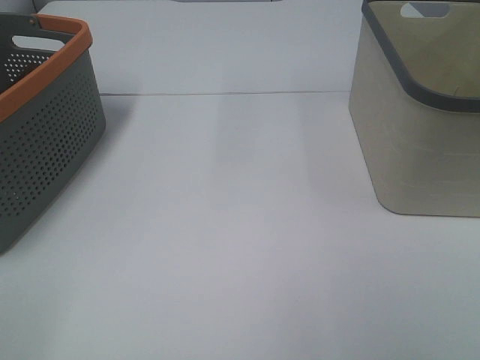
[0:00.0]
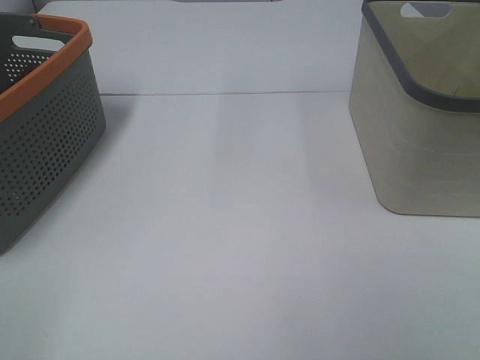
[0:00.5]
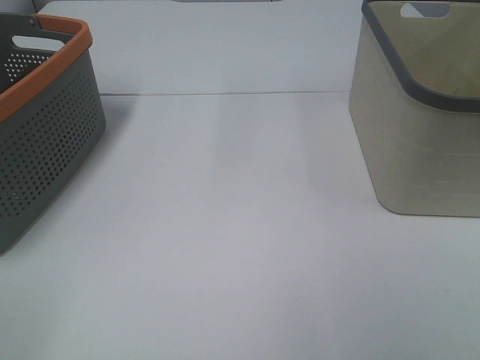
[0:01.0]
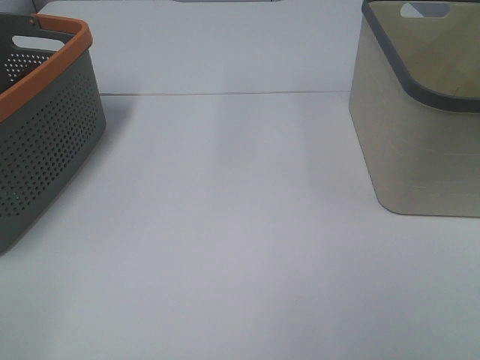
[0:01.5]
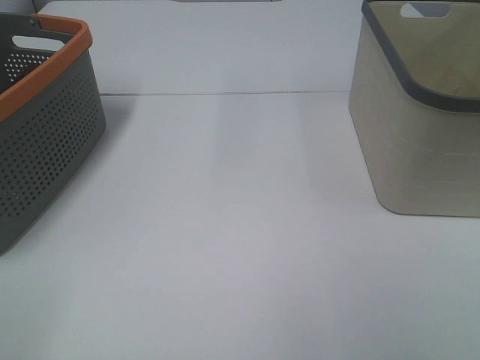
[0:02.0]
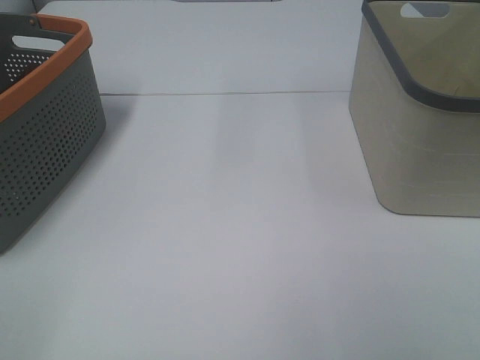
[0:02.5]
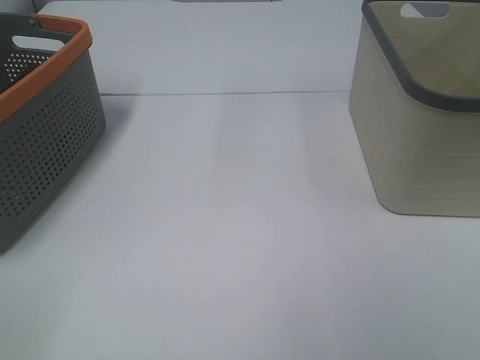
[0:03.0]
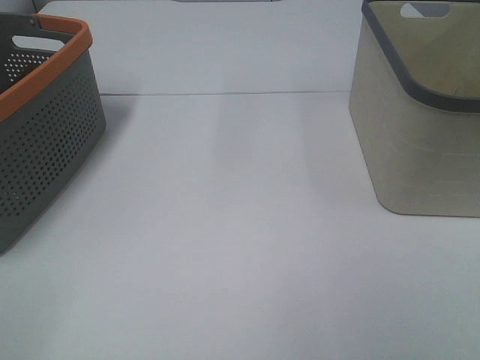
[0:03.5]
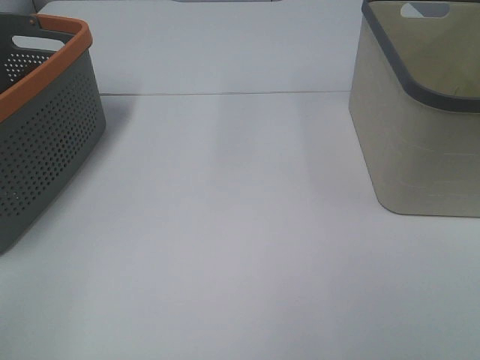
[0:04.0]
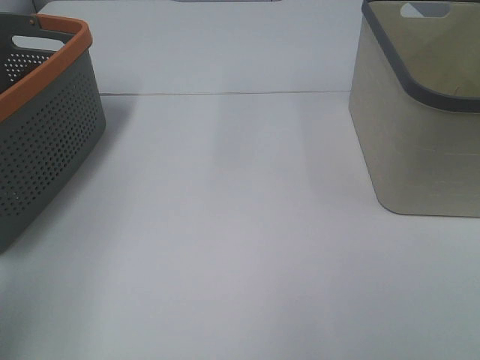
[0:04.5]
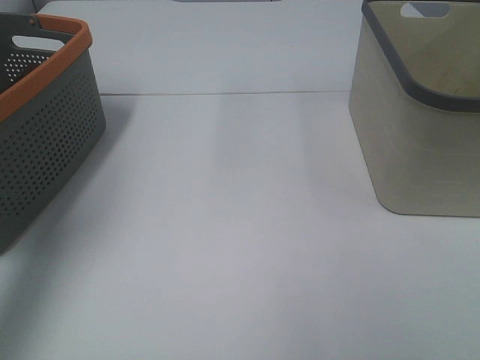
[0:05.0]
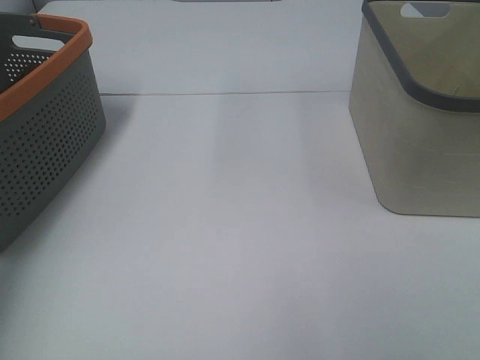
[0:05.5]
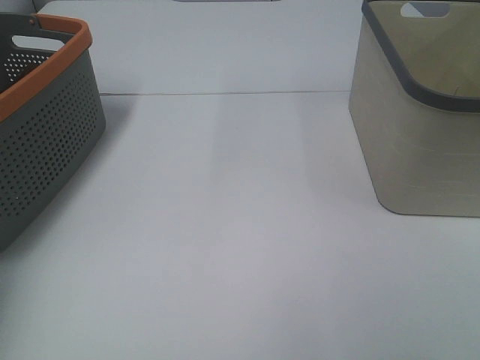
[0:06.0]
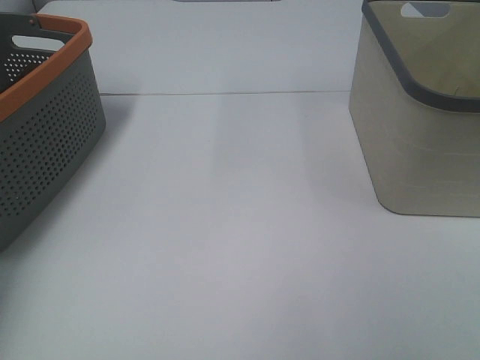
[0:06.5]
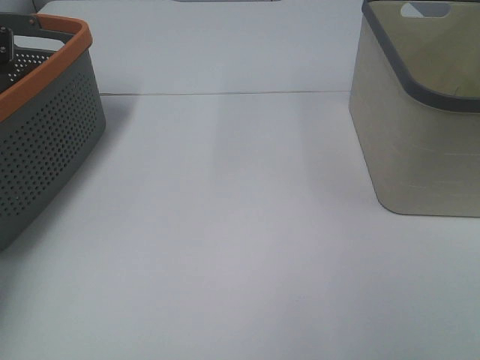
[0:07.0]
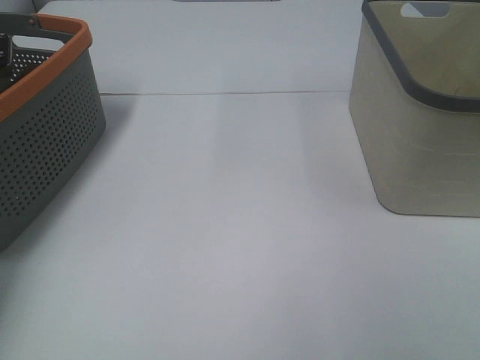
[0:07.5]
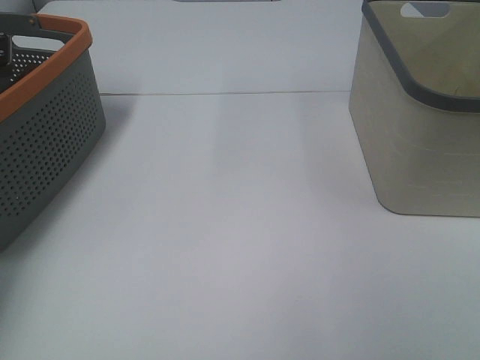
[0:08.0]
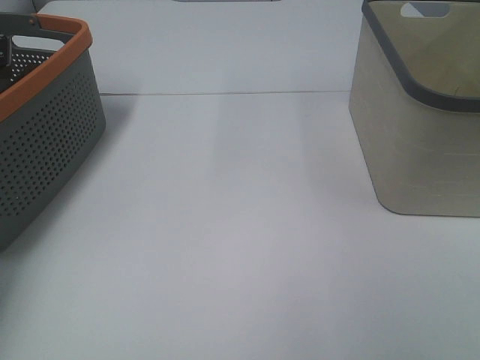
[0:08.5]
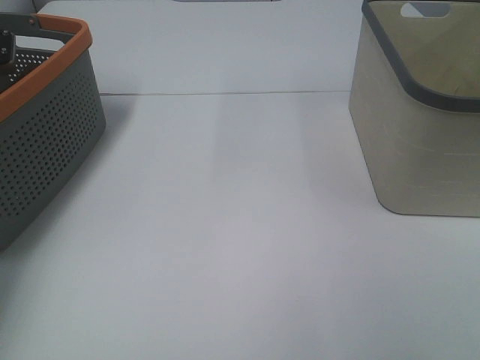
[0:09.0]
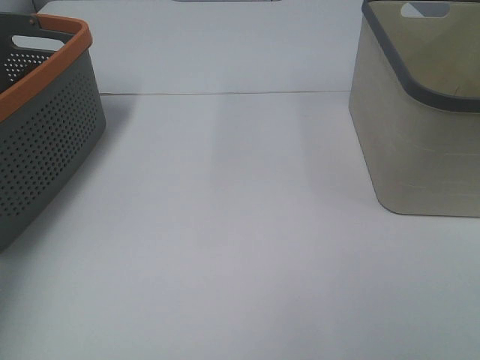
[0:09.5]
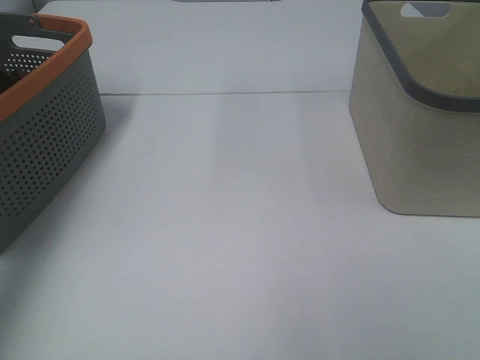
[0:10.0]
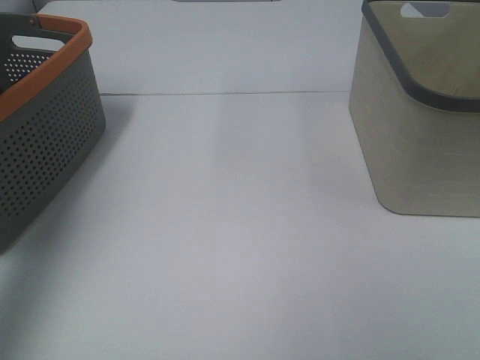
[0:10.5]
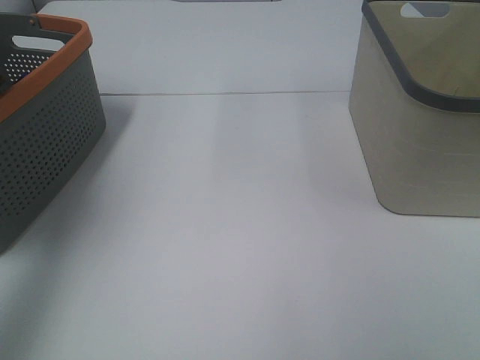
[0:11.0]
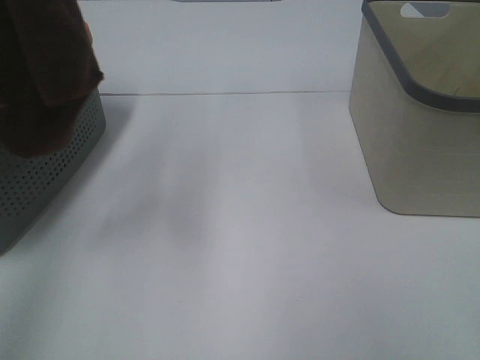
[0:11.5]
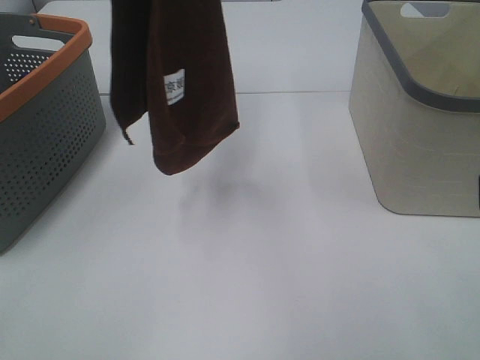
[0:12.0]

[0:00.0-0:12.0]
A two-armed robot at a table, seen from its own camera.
Task of the whole recording: Remove the towel and place it.
0:00.0 to 0:02.0: The two grippers keep their place.
0:04.0 to 0:06.0: The left gripper heads forward, covering roughly 40 cm.
0:08.0 to 0:10.0: The left gripper goes roughly 25 cm upward and backward, and closes up.
0:10.0 to 0:12.0: The right gripper is displaced forward and to the left by some 10 cm; the left gripper goes roughly 20 cm to the right.

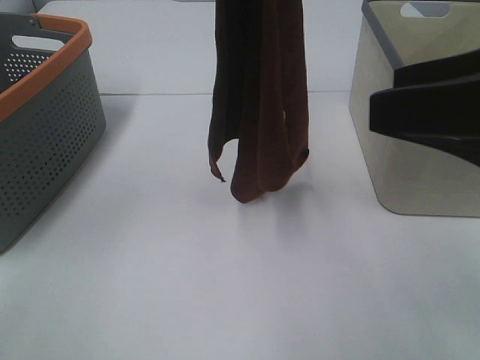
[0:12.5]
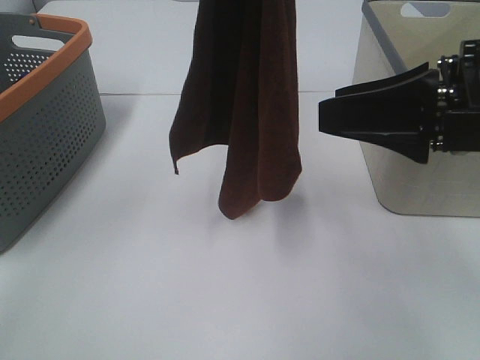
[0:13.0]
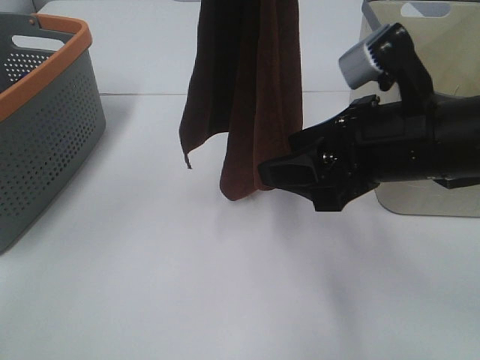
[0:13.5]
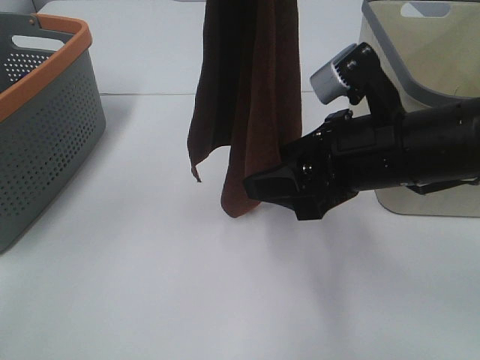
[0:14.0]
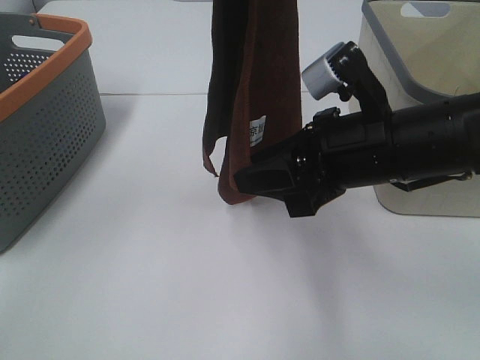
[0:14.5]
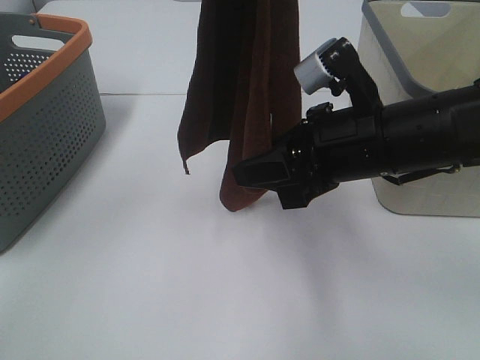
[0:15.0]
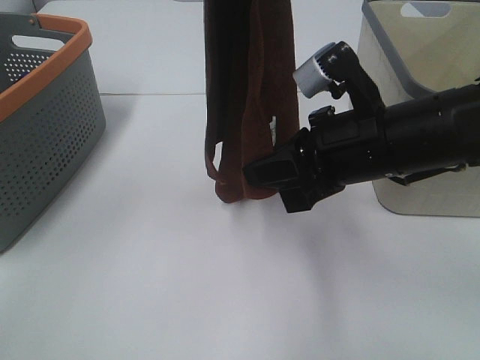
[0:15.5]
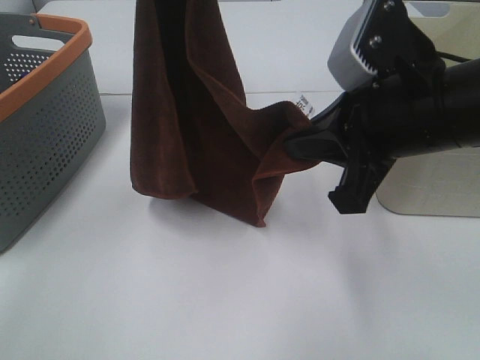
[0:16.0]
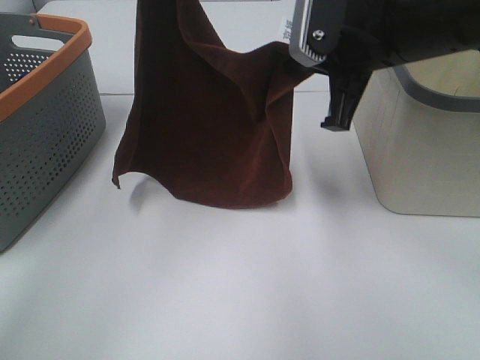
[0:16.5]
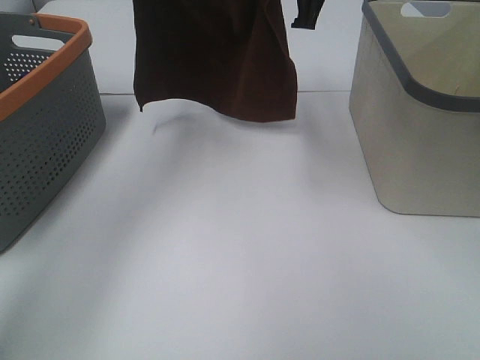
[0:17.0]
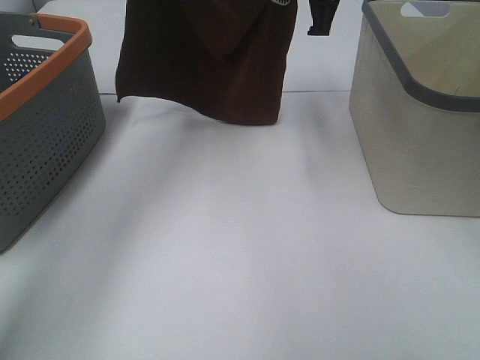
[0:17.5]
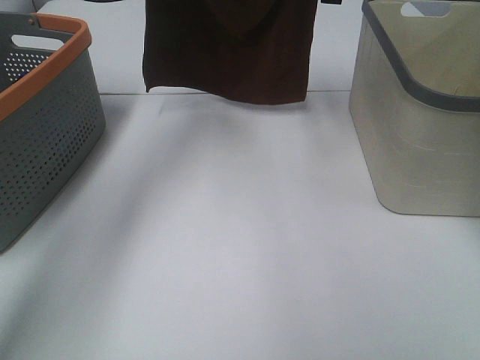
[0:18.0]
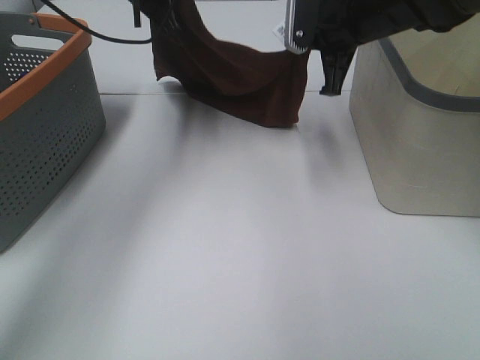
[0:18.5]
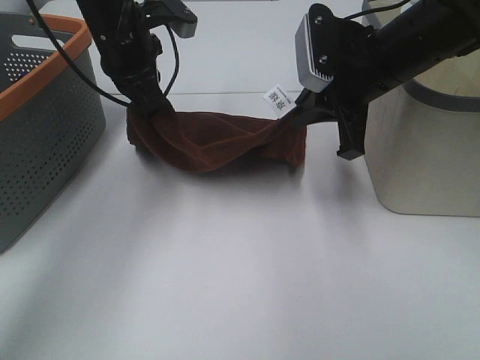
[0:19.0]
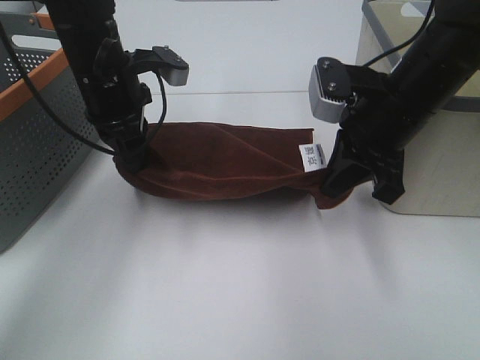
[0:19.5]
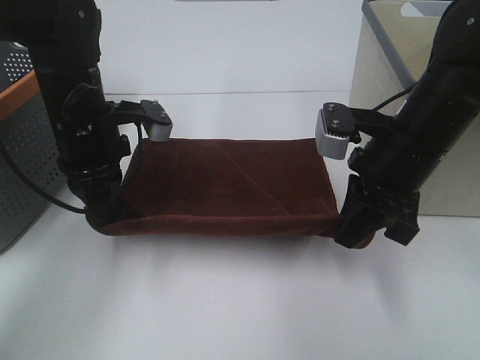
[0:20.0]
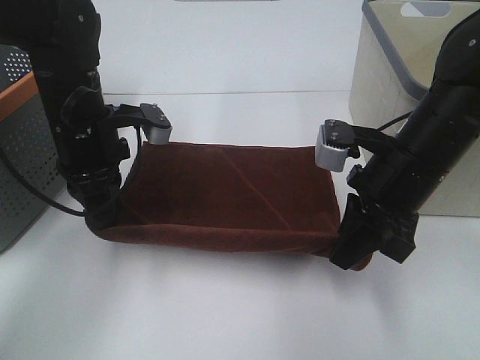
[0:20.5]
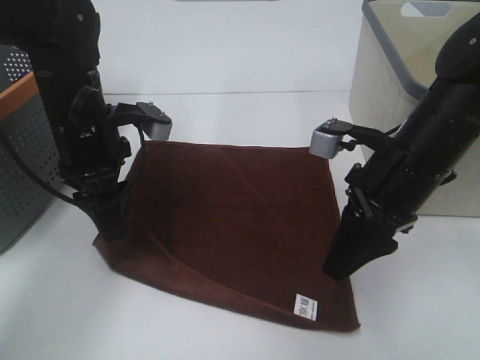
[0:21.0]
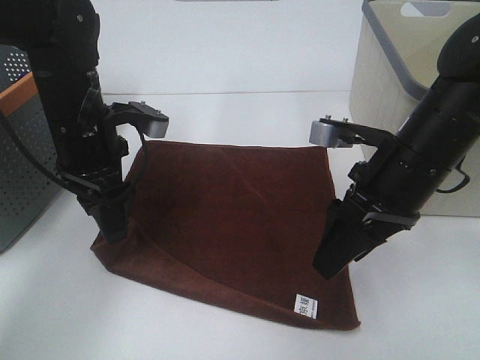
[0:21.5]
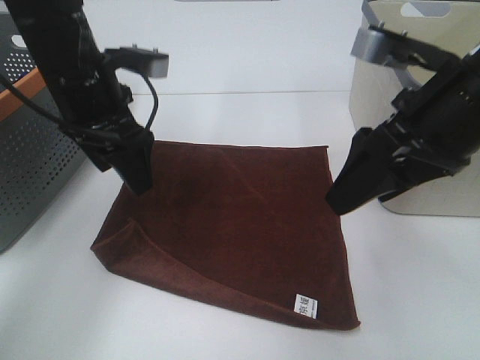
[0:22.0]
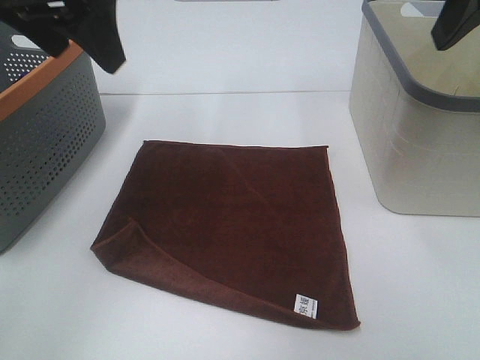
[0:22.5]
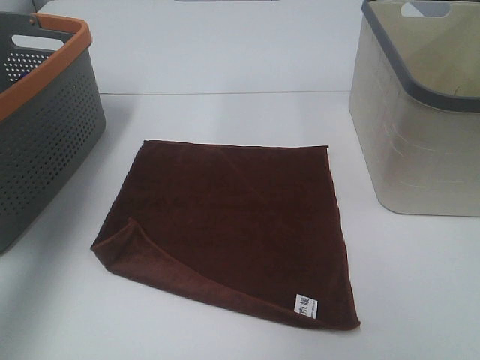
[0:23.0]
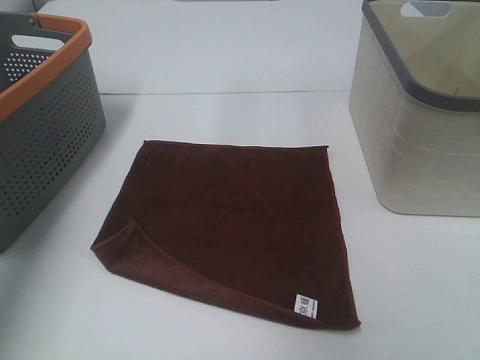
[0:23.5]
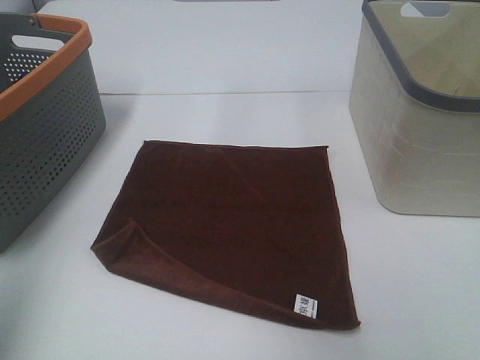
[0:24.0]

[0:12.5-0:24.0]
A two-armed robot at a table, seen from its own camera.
Task of the whole recording: Remove the towel and place it.
Step, 0:12.5 to 0:14.5: Right hand: grab a corner of the brown towel and straighten it.
Step, 0:15.0 to 0:16.5: Left hand: spread the brown towel flat on the table.
Step, 0:15.0 to 0:16.5: Right hand: spread the brown towel flat on the table.
0:12.5 to 0:14.5: The right gripper heads downward, forward and to the left, covering about 15 cm.
0:14.5 to 0:16.5: The left gripper shifts some 15 cm forward and downward, while the right gripper travels upward and forward by about 10 cm, and closes.
0:16.5 to 0:18.5: The right gripper moves forward, roughly 10 cm. The left gripper shifts some 15 cm downward and forward.
0:18.5 to 0:20.0: Both grippers move backward and downward, roughly 15 cm.
0:20.0 to 0:22.0: The right gripper is displaced upward by roughly 10 cm, and opens up. The left gripper shifts some 5 cm upward, and opens.
0:22.0 to 0:24.0: The left gripper moves backward, to the left and upward, roughly 35 cm. The right gripper moves upward, to the right and backward, some 20 cm.

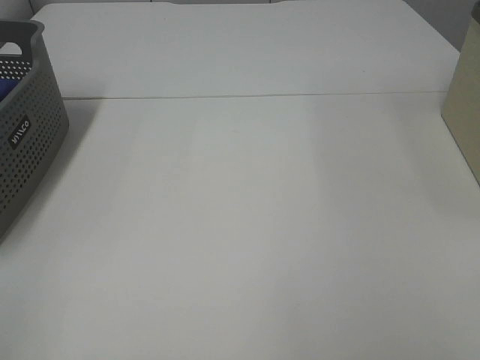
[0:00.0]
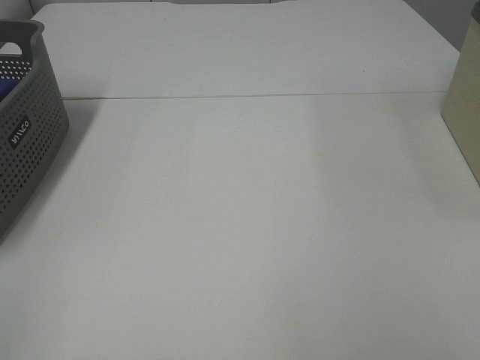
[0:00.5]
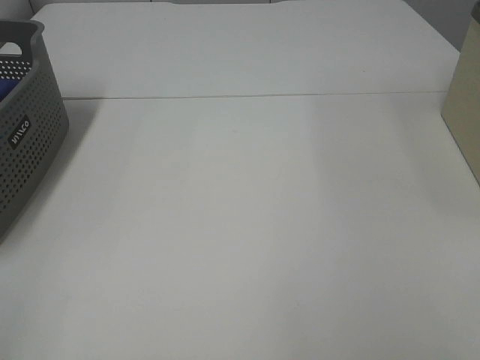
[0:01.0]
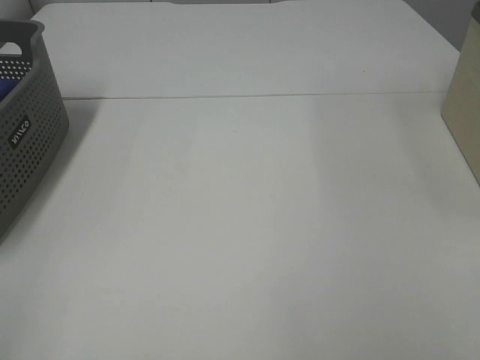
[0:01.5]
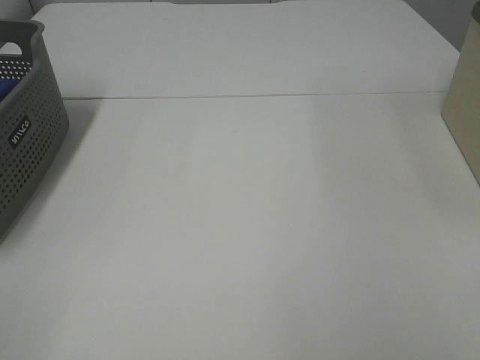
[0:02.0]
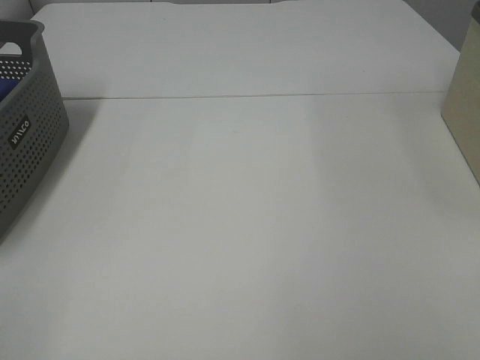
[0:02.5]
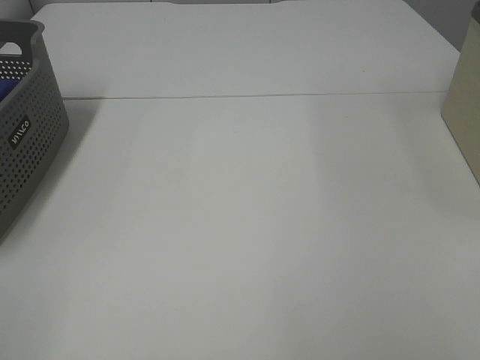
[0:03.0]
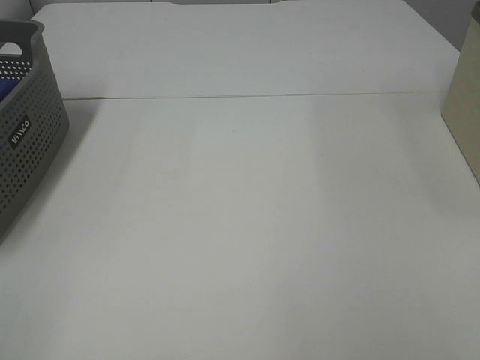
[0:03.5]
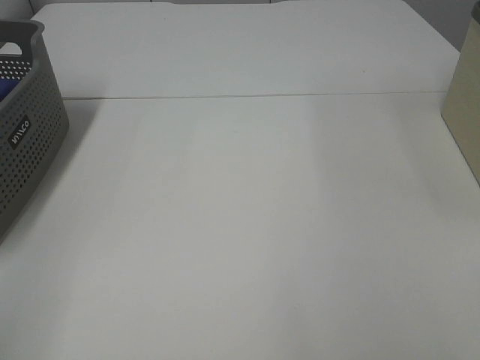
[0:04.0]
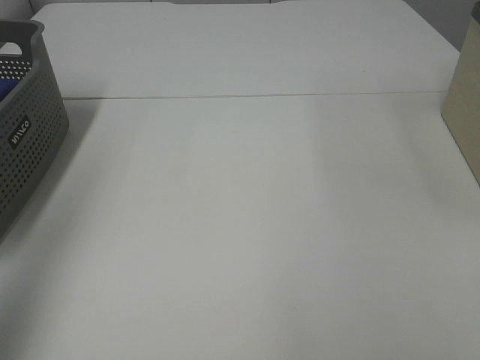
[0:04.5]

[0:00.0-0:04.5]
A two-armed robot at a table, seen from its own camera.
Task of the whole recording: Remove the towel and place it.
0:00.0 to 0:02.0: Neither gripper changes place.
0:02.0 to 0:04.5: The left gripper heads forward and upward, covering about 20 cm.
